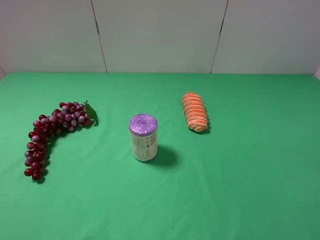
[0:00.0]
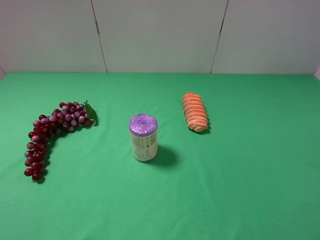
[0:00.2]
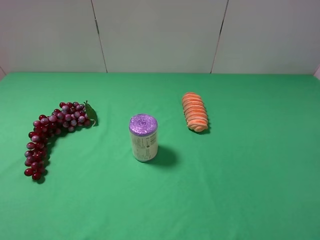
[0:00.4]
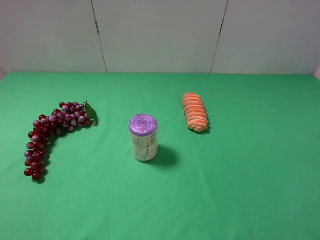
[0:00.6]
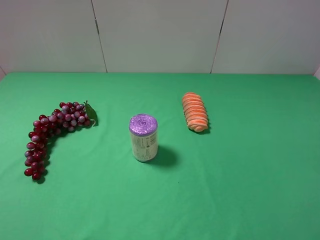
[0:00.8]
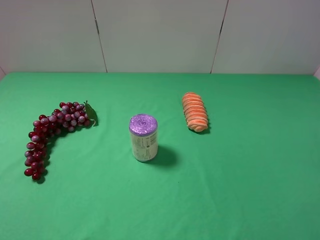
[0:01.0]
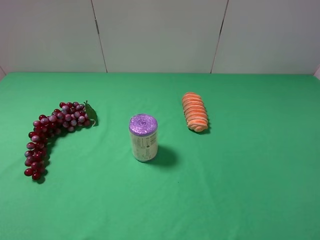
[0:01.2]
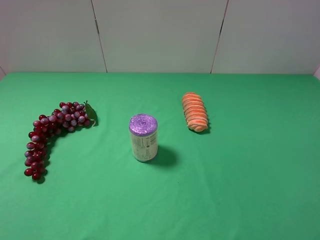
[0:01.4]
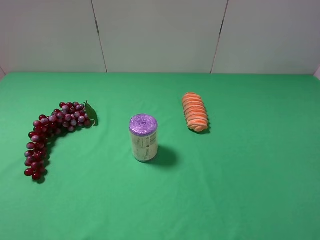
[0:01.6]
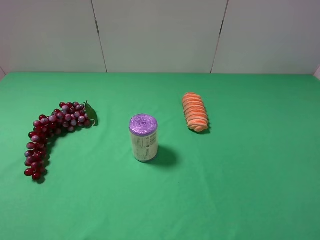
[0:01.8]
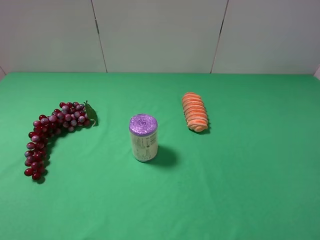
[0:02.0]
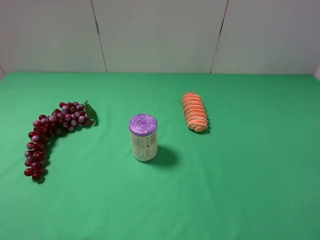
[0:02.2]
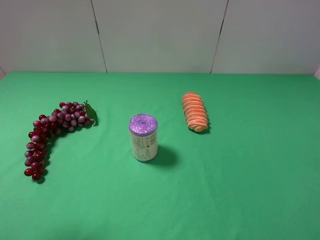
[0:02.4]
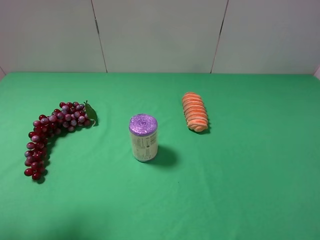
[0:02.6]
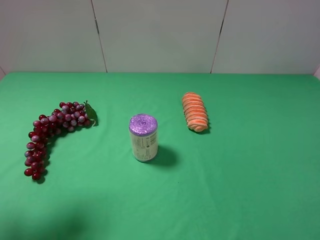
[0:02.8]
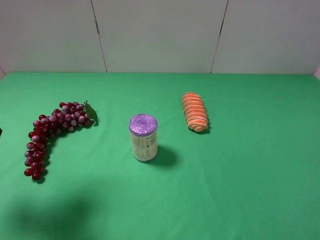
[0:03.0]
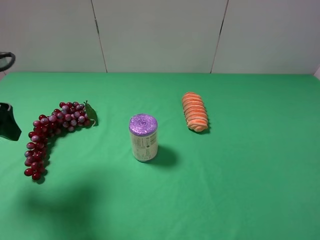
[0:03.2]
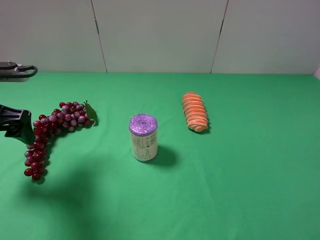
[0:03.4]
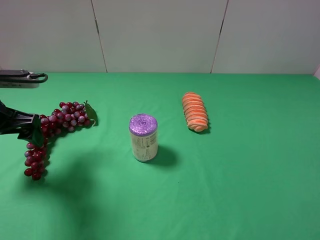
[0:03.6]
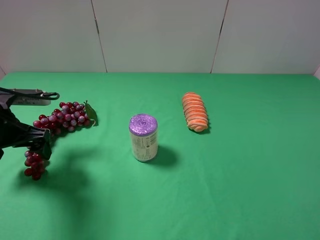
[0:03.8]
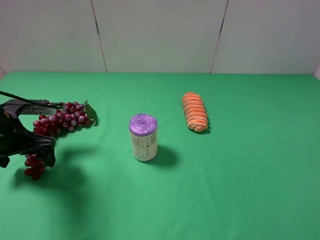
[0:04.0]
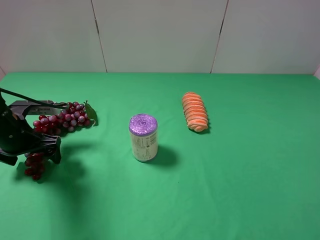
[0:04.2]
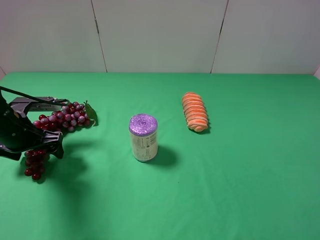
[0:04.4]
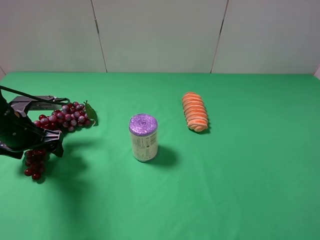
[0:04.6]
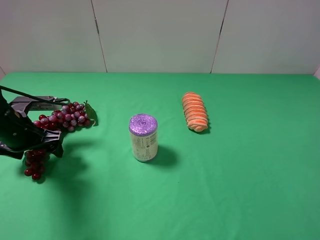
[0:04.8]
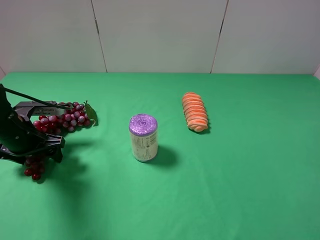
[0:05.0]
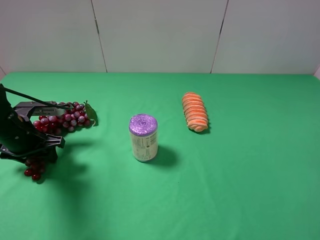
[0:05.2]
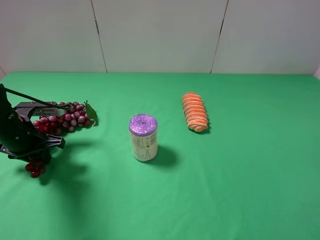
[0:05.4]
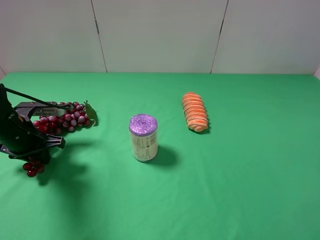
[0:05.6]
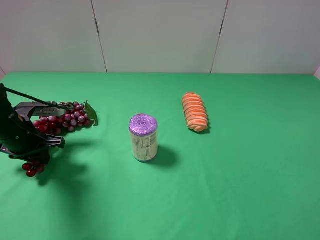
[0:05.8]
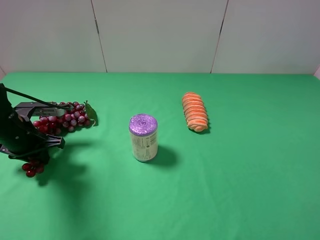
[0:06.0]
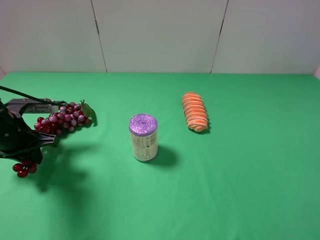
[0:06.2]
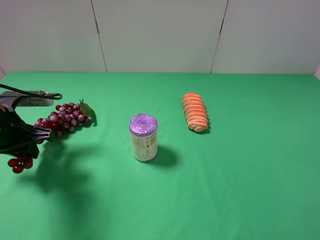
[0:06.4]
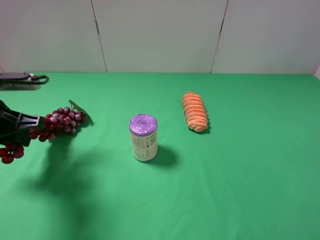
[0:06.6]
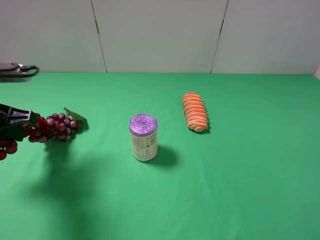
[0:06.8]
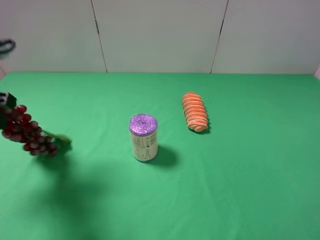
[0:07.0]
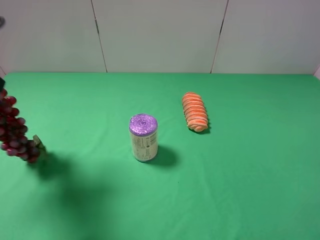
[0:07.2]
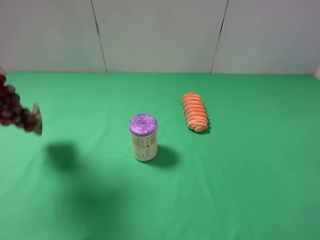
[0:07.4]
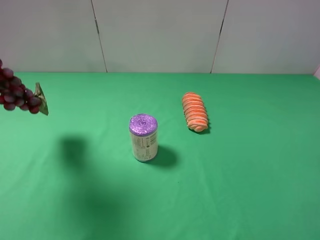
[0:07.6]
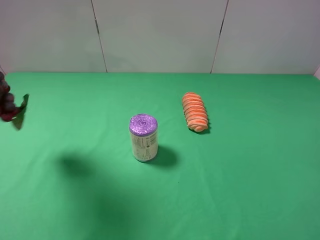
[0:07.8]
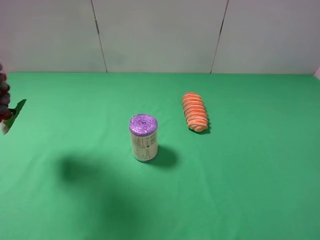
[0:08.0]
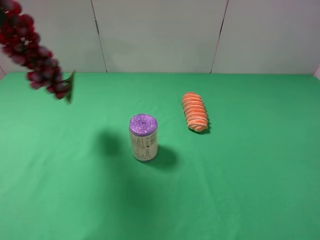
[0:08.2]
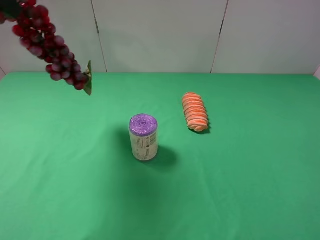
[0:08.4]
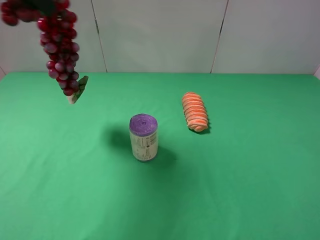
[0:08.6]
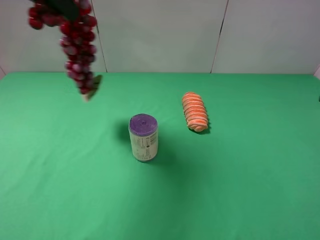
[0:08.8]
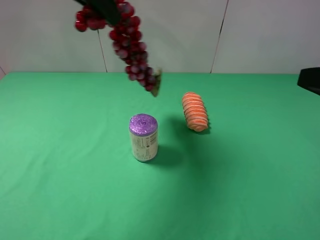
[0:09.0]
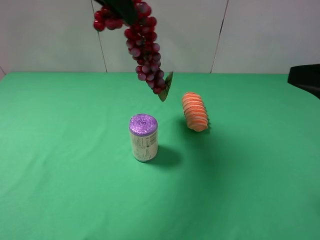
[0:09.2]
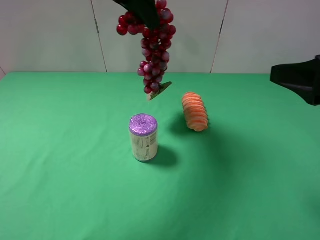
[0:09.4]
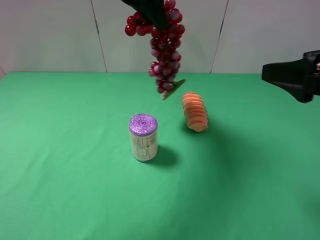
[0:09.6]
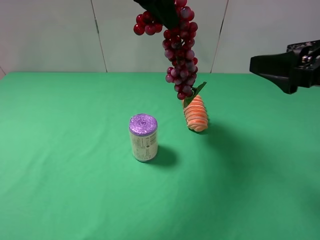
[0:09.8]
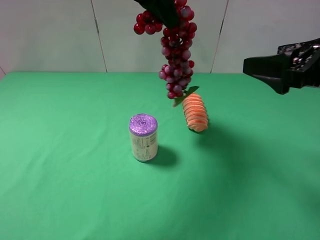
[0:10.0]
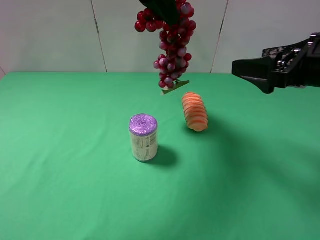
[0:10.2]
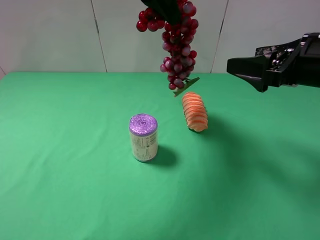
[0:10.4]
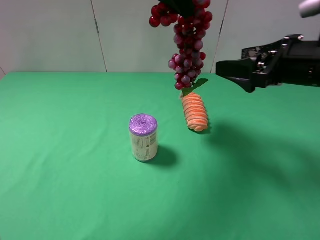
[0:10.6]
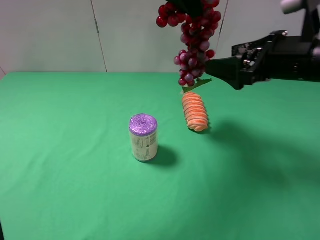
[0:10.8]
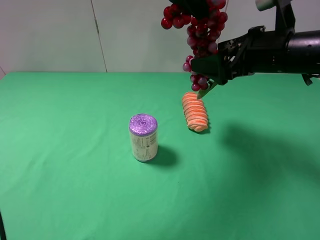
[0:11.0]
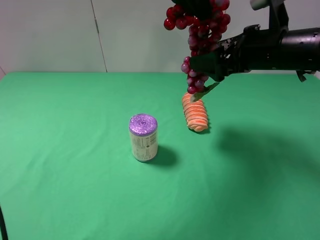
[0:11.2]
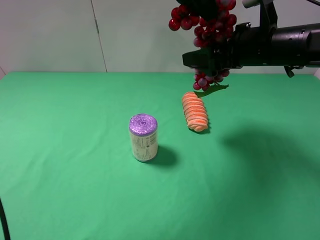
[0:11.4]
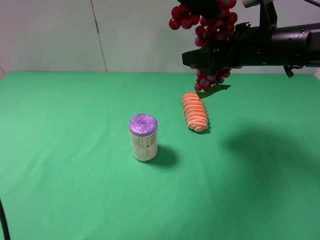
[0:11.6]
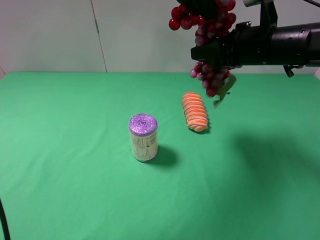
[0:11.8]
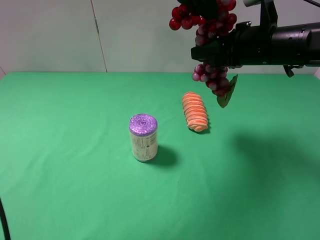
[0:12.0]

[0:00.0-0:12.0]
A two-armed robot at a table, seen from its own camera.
Task of the whole recording: use the left gripper to pick up the item and transfer it from the left gripper to the right gripper.
Step, 0:00.0 to 0:05.6: Use the left gripper to grab the grape on the left side of the table.
0:00.0 to 0:01.6: Both grippers stay about where they are.
0:01.6 to 0:03.0: The left gripper is displaced forward by some 15 cm.
0:03.0 to 0:04.4: The left gripper heads downward and forward, covering approximately 20 cm.
0:04.4 to 0:06.0: The left gripper closes.
0:06.0 to 0:07.6: The left gripper goes roughly 30 cm upward.
0:07.6 to 0:09.0: The left gripper shifts approximately 20 cm to the right and forward; the right gripper goes approximately 10 cm forward.
0:09.0 to 0:10.4: The right gripper travels forward by roughly 10 cm; the left gripper travels to the right by roughly 10 cm.
0:10.4 to 0:12.0: The right gripper is displaced forward and to the left by about 10 cm, and closes its fingers.

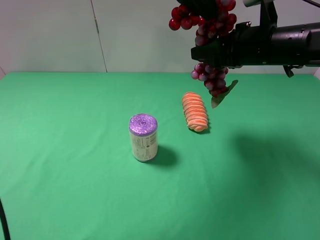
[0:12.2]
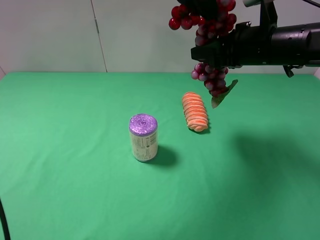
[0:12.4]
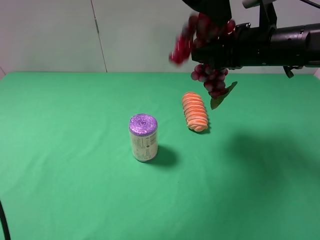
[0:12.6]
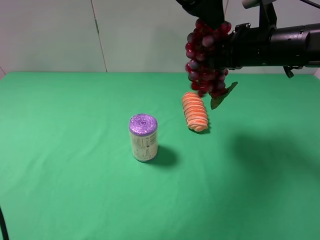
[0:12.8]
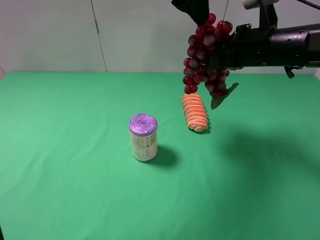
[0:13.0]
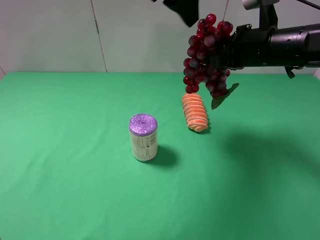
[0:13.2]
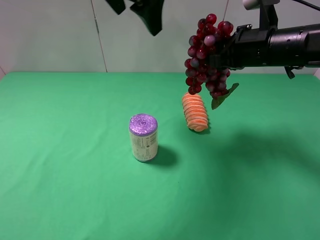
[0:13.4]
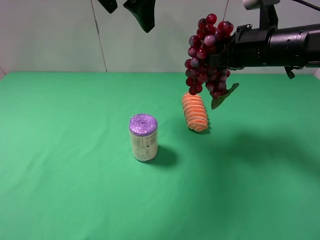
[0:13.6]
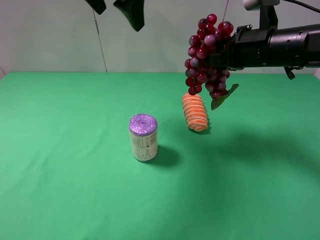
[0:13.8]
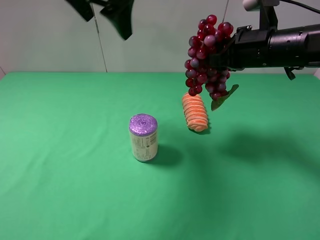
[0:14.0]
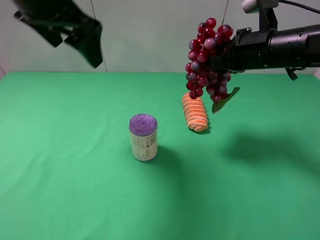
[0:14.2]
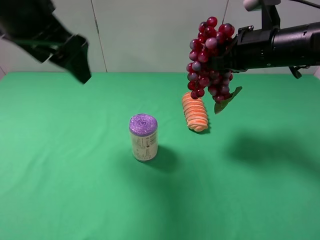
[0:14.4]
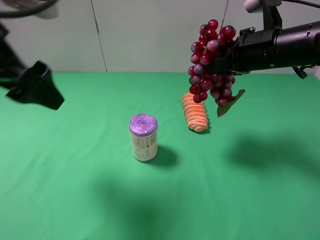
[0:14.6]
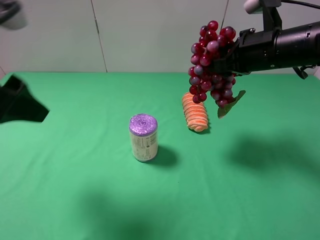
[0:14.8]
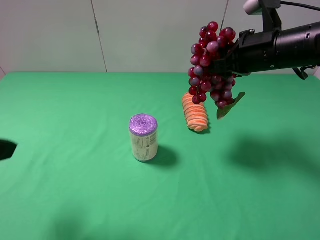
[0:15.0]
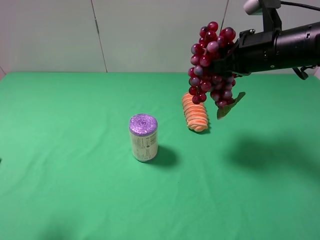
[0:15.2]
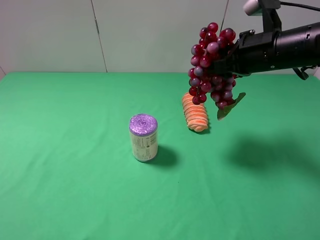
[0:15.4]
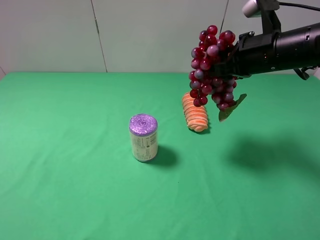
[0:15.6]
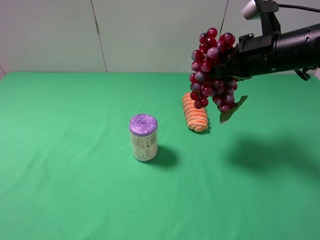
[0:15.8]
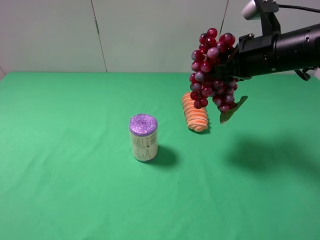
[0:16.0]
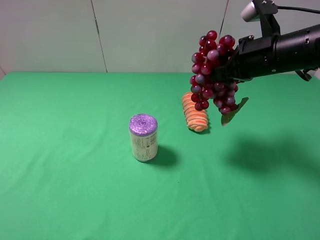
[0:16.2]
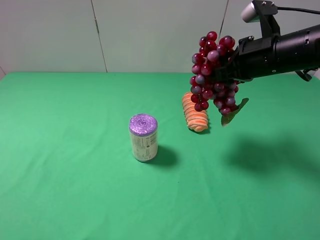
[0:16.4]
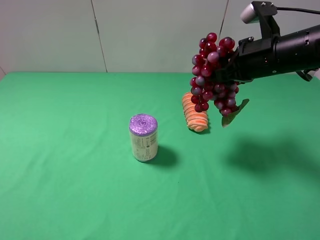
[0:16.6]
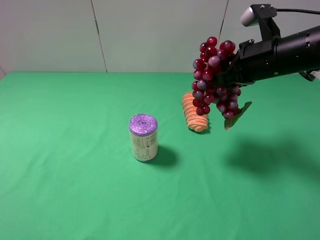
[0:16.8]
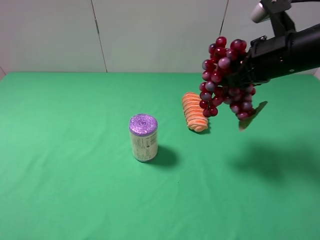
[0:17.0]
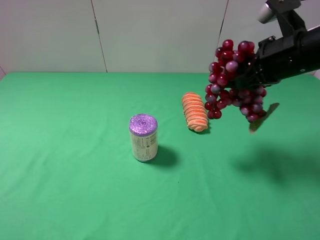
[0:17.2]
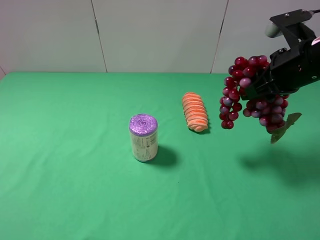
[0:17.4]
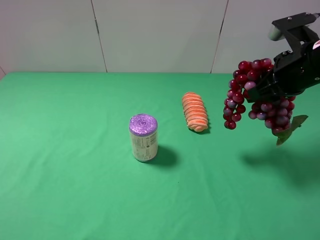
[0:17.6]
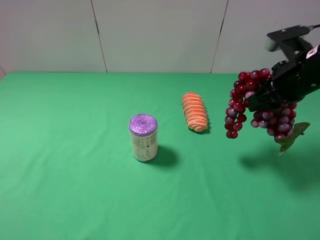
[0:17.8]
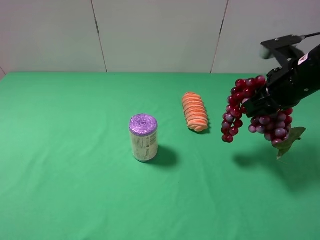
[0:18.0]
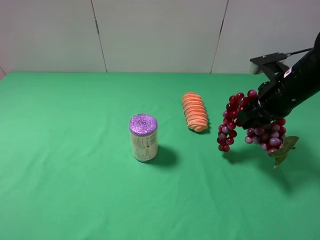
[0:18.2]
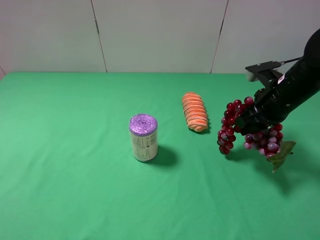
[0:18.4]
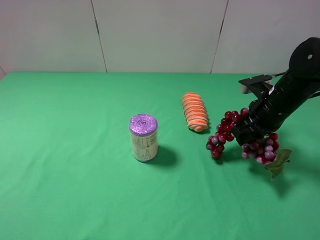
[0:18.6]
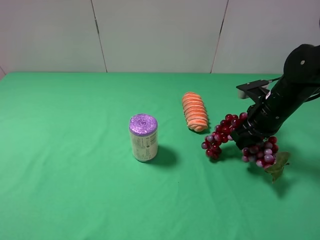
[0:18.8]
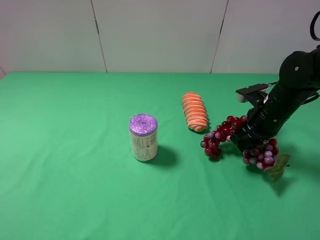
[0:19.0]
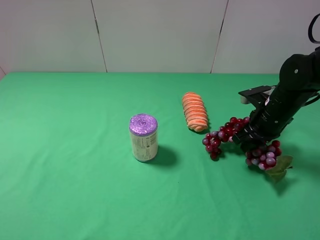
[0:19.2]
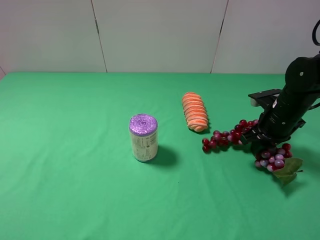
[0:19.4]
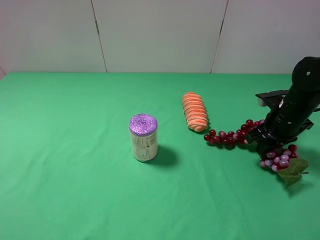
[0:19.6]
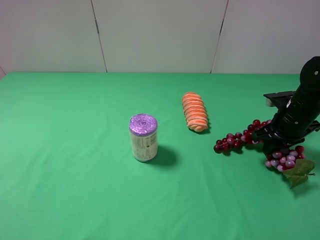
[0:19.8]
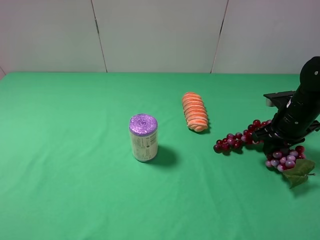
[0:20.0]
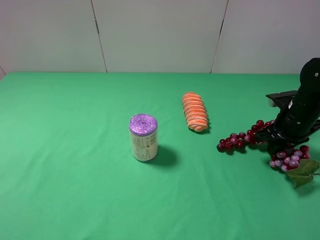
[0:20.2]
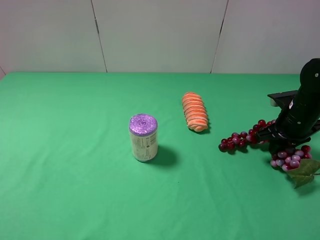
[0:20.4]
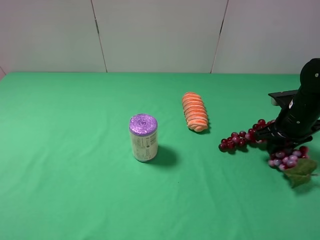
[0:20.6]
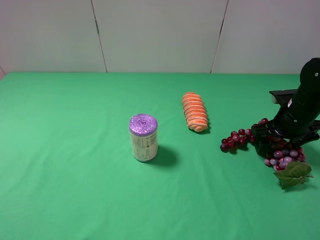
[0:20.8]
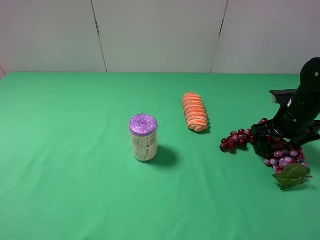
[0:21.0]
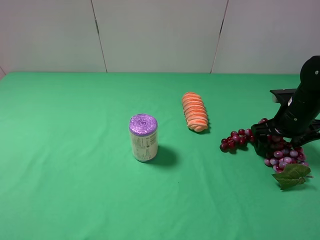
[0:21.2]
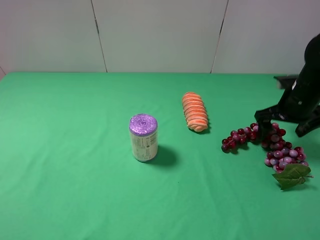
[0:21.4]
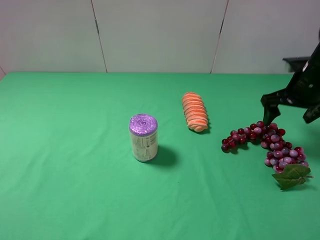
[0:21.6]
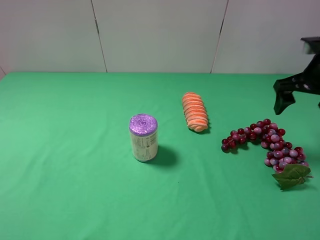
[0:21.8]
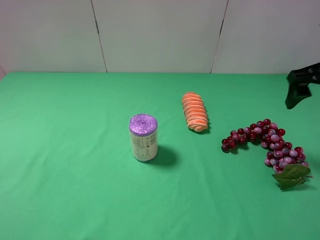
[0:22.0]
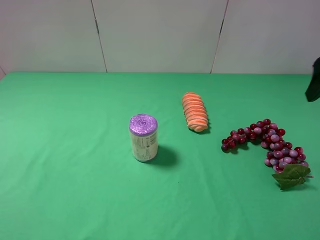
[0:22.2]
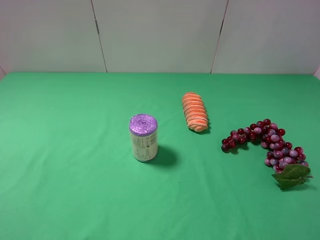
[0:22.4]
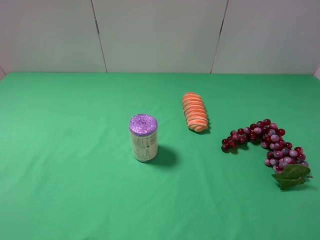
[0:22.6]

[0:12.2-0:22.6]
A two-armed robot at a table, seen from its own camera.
Task of the whole recording: use the left gripper to pick up the item and transfer it from the left gripper to the right gripper.
Step, 0:13.4 to 0:21.4: The right gripper places grape on the right side of the table.
0:12.2 to 0:13.6: The left gripper is displaced to the left by approximately 10 cm, and opens its fingers.
0:13.6 to 0:15.2: The left gripper travels backward and to the left by roughly 35 cm.
0:15.2 to 0:16.6: The left gripper moves approximately 5 cm.
0:16.6 to 0:18.2: The right gripper heads downward, covering about 5 cm.
0:18.2 to 0:19.6: The right gripper moves downward and to the right, roughly 10 cm.
0:19.6 to 0:21.2: The right gripper opens its fingers.
0:21.2 to 0:22.6: The right gripper shifts some 30 cm upward and backward.
